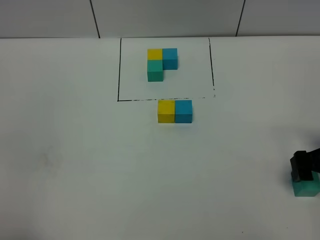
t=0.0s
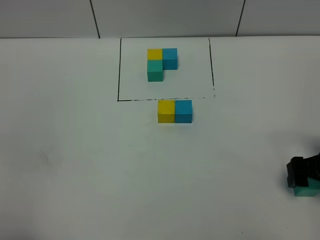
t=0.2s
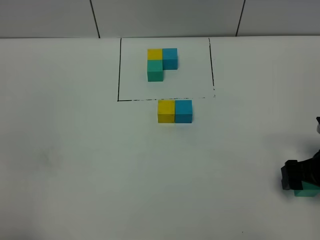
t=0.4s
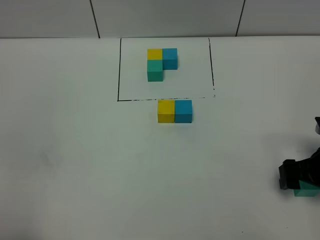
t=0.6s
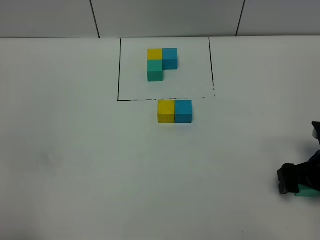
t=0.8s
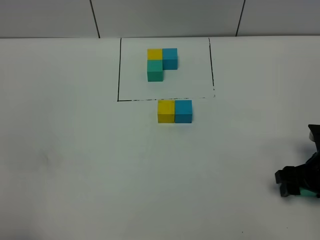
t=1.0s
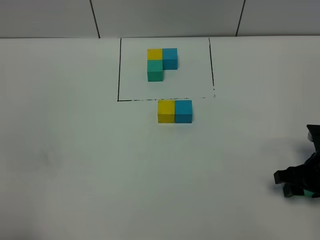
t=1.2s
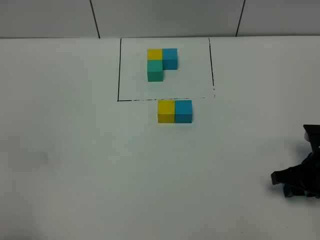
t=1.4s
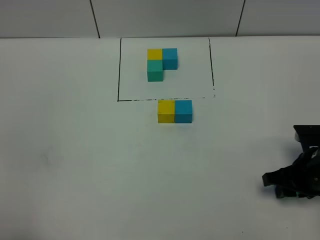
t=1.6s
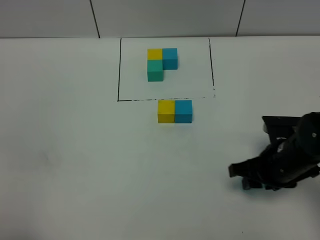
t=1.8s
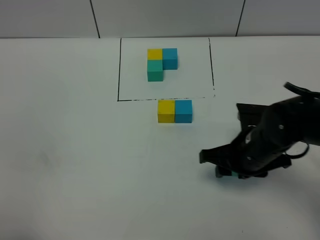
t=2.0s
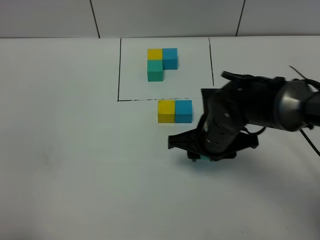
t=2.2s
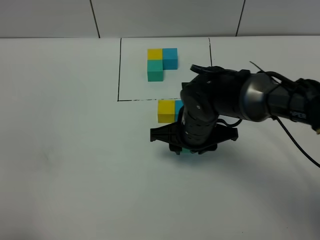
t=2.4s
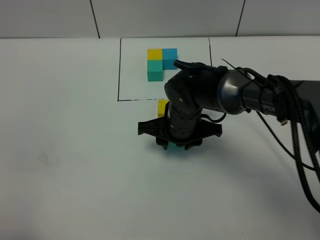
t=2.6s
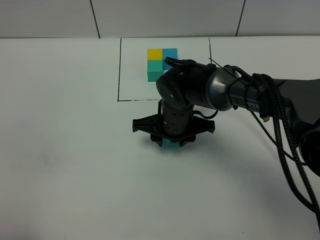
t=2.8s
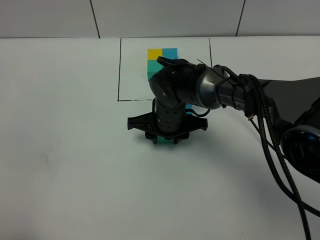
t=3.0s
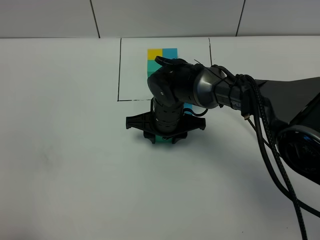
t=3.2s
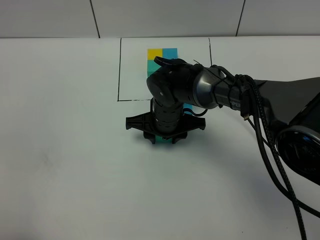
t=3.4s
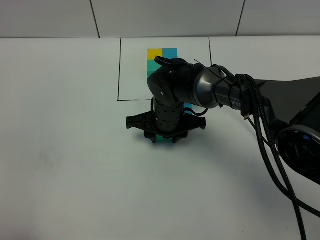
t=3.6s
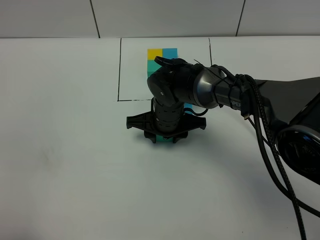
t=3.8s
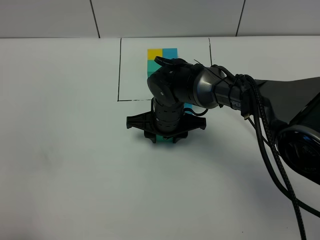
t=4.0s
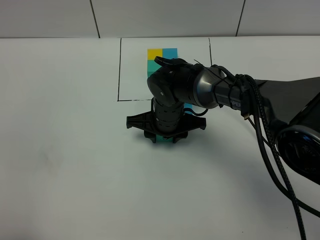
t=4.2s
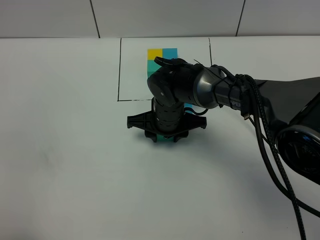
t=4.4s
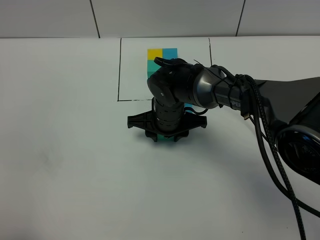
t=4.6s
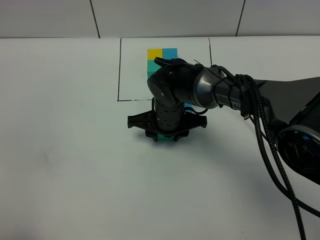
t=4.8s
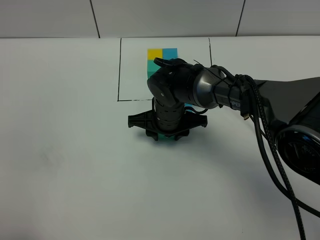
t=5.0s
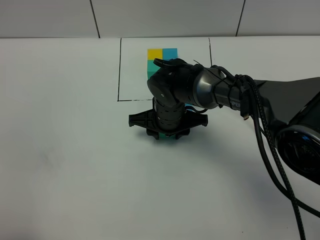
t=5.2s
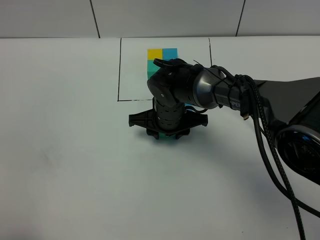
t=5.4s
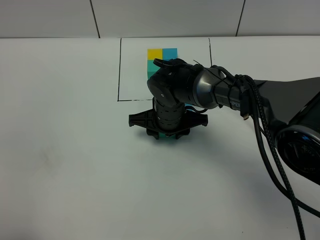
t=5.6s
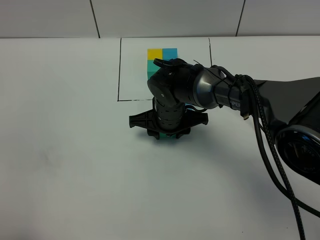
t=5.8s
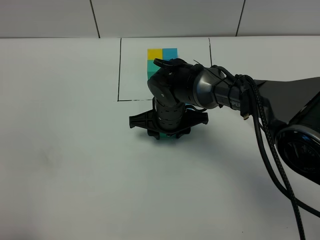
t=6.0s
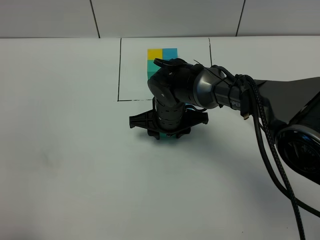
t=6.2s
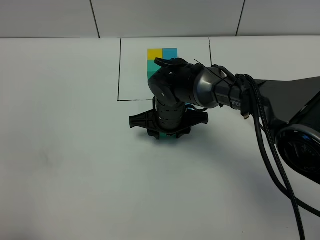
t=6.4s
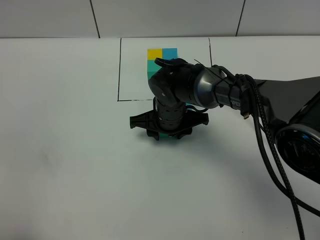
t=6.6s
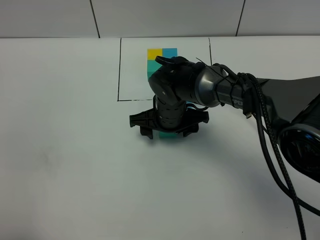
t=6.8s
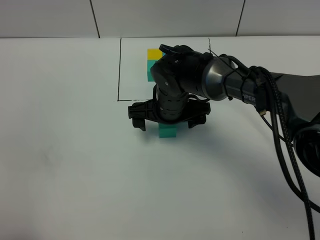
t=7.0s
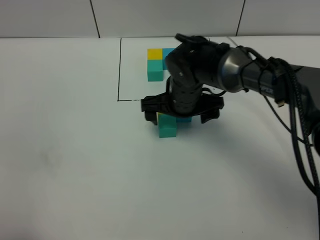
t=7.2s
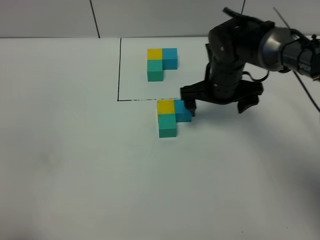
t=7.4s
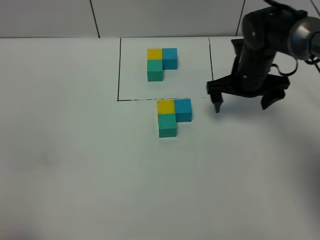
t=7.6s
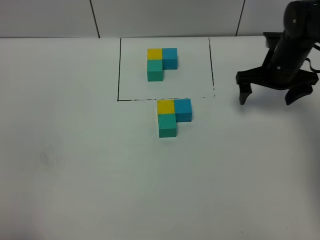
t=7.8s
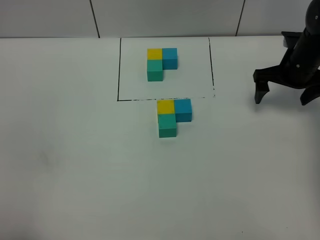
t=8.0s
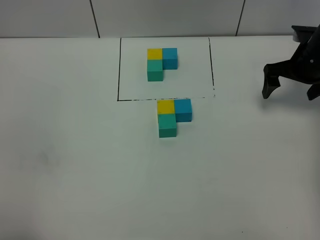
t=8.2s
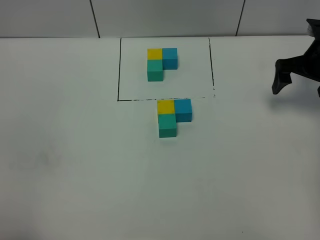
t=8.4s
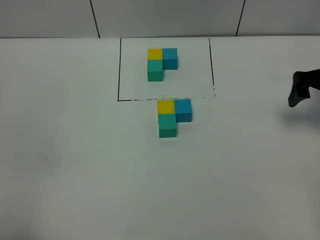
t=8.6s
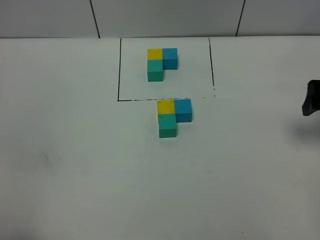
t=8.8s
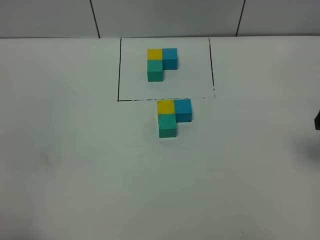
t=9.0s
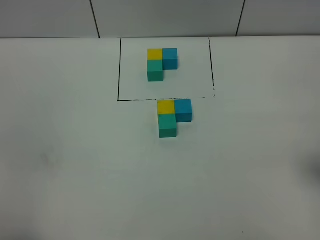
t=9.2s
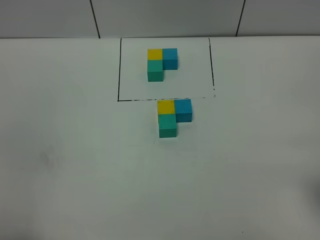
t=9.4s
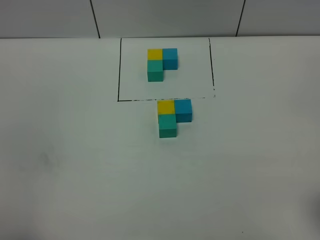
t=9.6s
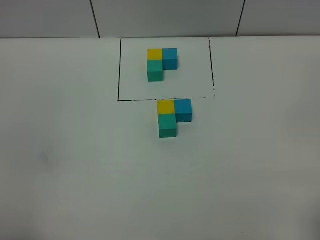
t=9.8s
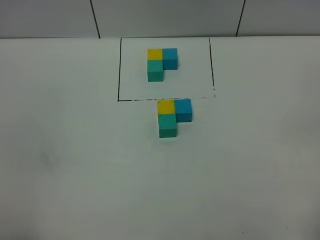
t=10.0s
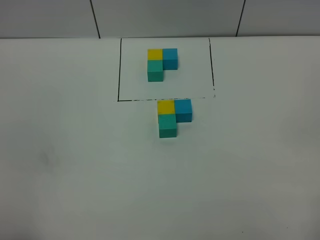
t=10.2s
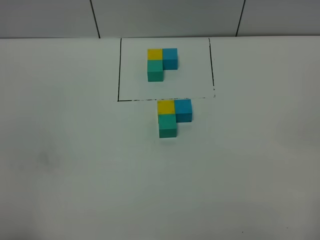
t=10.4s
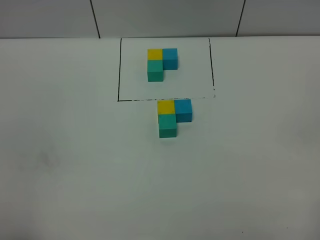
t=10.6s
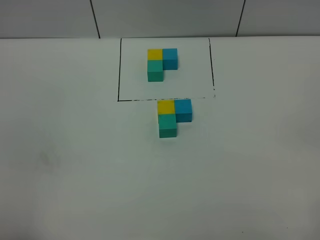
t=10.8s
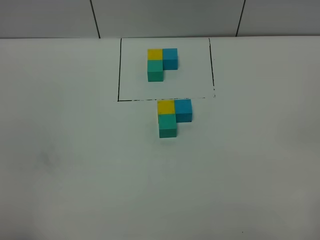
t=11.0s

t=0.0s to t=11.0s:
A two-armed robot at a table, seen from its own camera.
Task of the whole recording: According to the building block template in front, assemble the scattered blocks together.
Step, t=0.0s to t=6.6s: Put the green build block on the behind of the yellow build block.
t=0.0s to t=1.6s: The right gripper ends up some 5 cm from where it was, and closes.
t=1.6s to t=3.2s: The right gripper moves to the left and forward, approximately 30 cm.
t=3.2s to t=4.8s: Both grippers stay about where they are.
t=4.8s to t=6.2s: The two grippers keep their place.
t=6.2s to t=7.8s: The right gripper travels to the right by some 25 cm, and opens its fingers.
t=7.8s to t=9.4s: The right gripper heads backward and upward, covering approximately 30 cm.

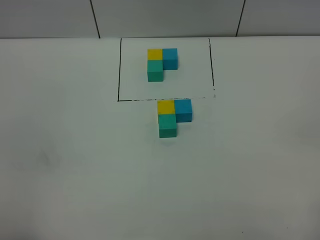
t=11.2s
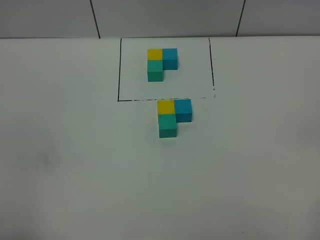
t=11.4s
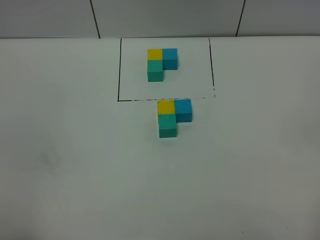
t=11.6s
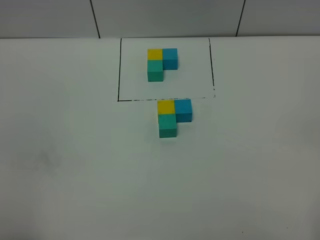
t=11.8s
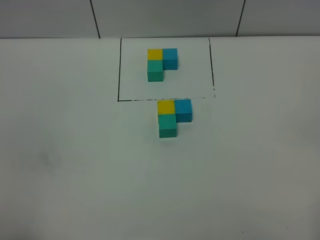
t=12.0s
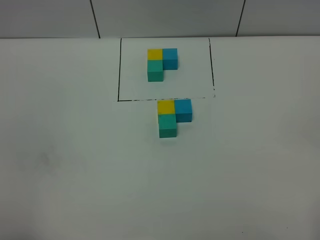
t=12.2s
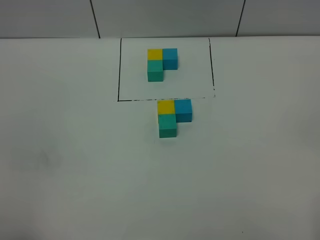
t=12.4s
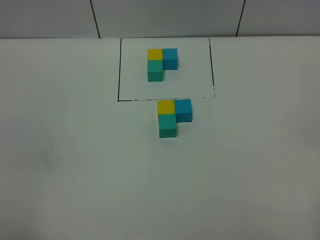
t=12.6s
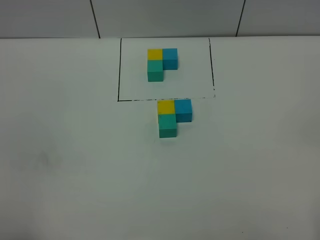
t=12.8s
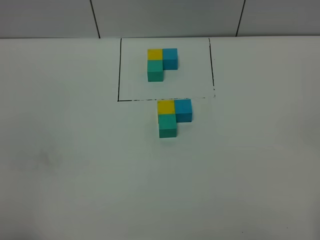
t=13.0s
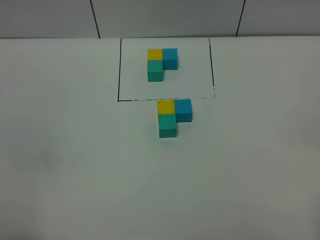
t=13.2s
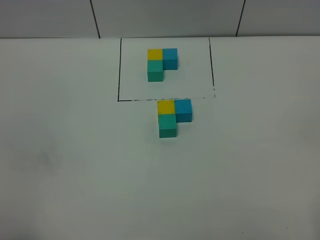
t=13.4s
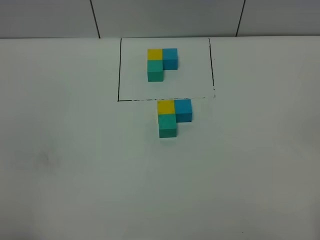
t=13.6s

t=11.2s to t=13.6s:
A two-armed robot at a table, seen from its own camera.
Task of the whole recording: According to the building block template in front, assemble the scattered blocks together.
t=12.4s to t=13.6s: Both grippers stay about where they are.
